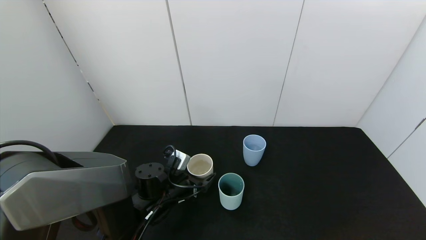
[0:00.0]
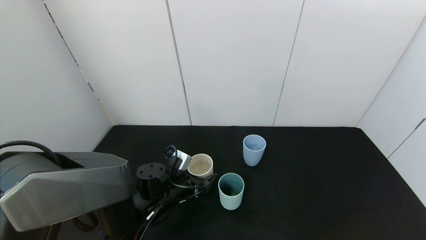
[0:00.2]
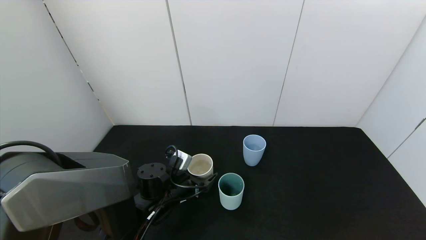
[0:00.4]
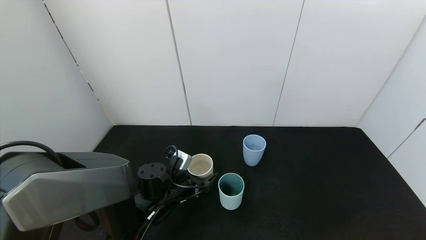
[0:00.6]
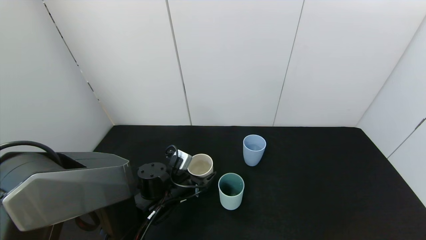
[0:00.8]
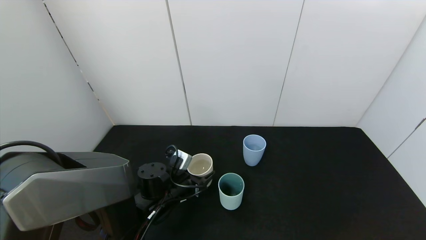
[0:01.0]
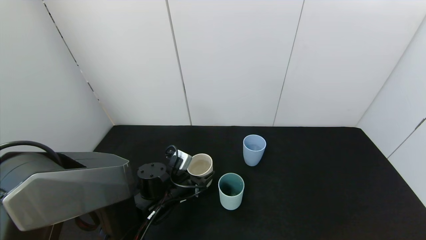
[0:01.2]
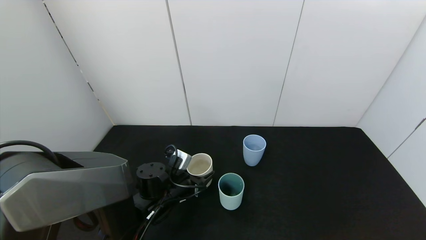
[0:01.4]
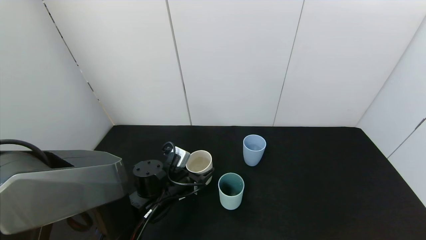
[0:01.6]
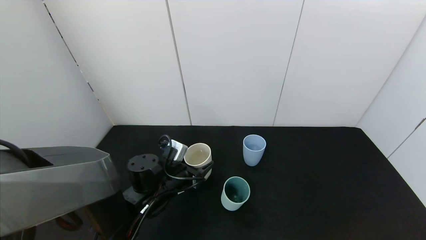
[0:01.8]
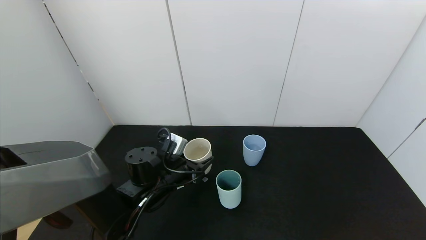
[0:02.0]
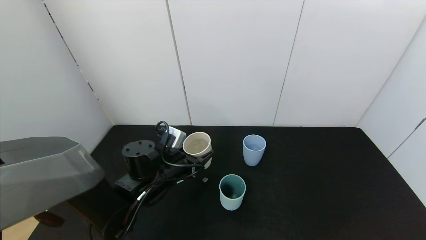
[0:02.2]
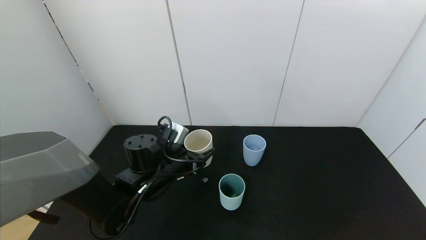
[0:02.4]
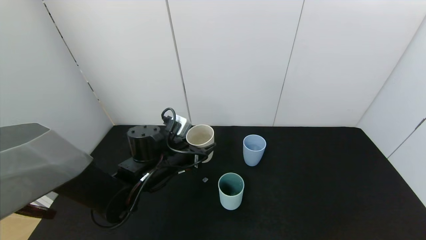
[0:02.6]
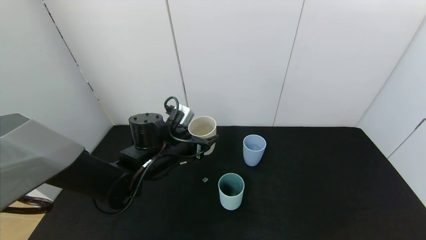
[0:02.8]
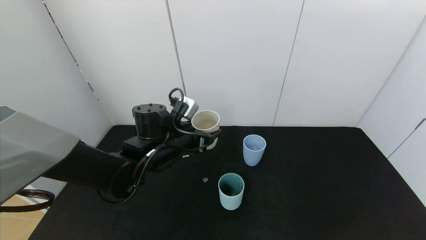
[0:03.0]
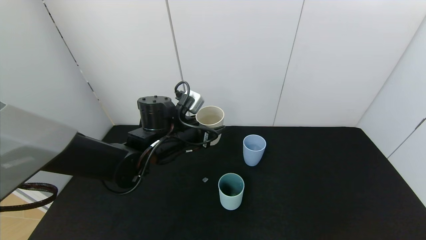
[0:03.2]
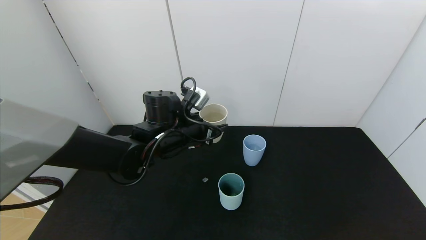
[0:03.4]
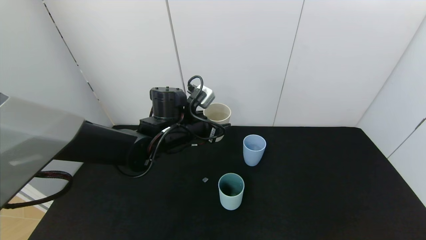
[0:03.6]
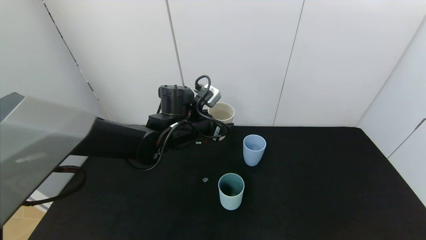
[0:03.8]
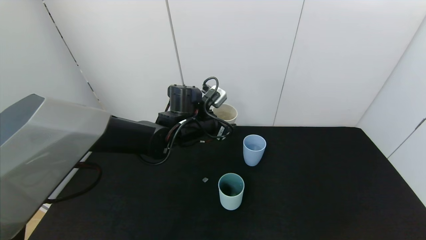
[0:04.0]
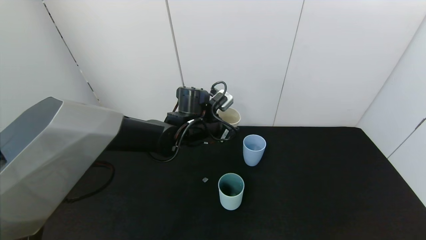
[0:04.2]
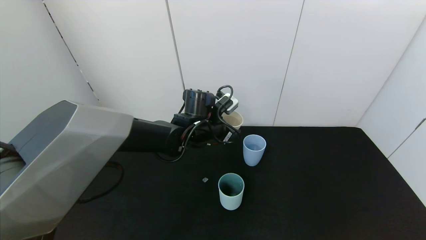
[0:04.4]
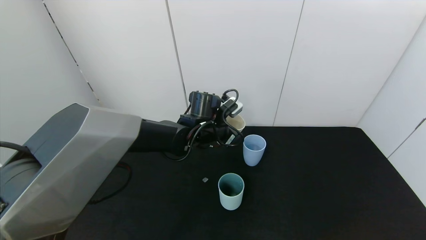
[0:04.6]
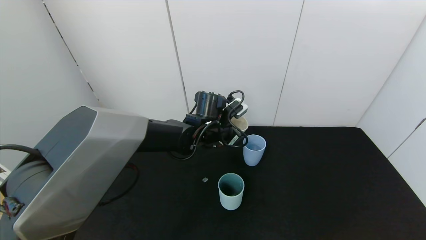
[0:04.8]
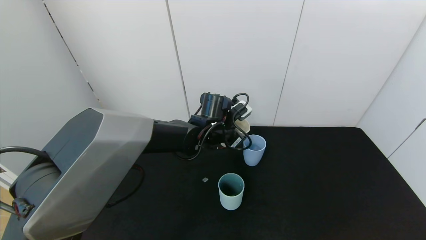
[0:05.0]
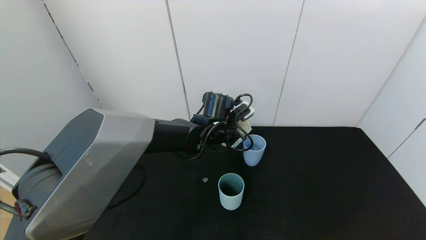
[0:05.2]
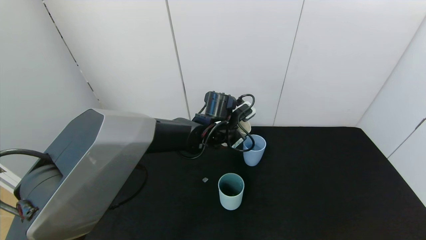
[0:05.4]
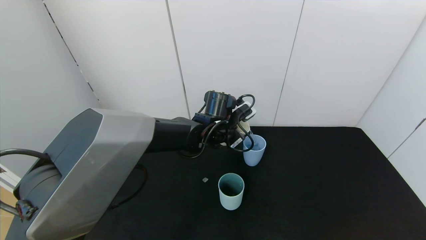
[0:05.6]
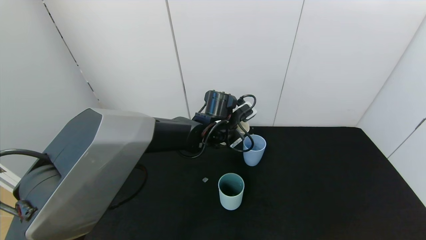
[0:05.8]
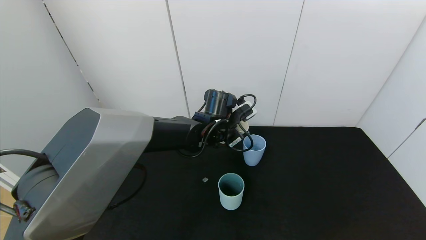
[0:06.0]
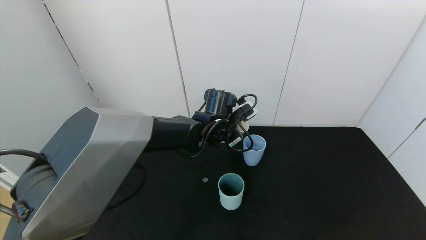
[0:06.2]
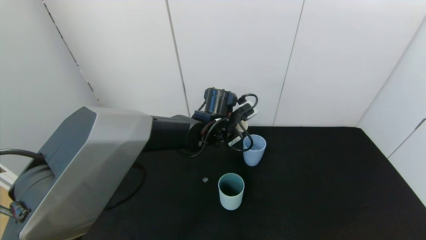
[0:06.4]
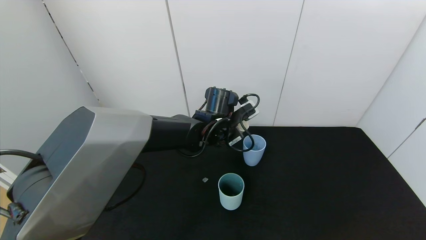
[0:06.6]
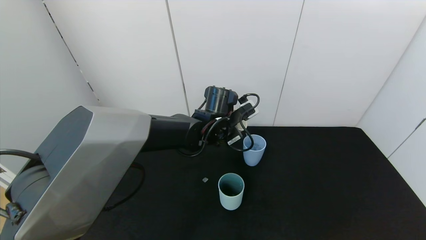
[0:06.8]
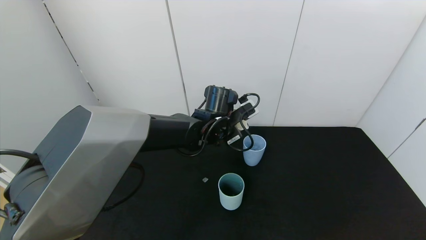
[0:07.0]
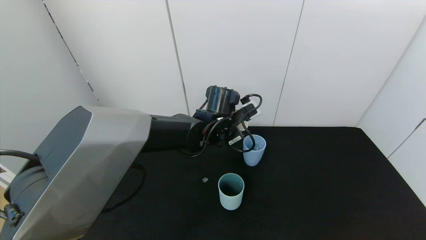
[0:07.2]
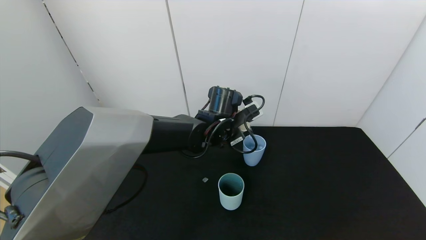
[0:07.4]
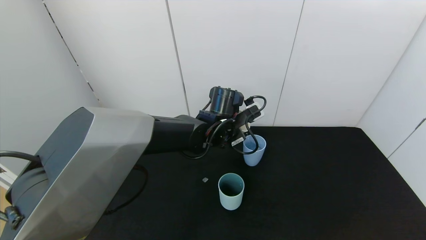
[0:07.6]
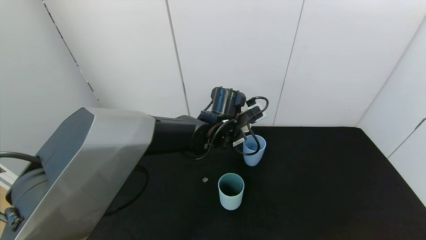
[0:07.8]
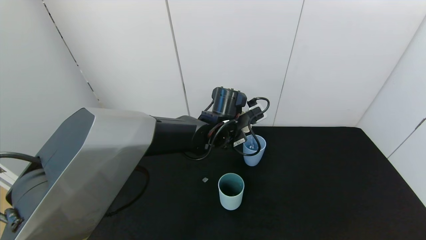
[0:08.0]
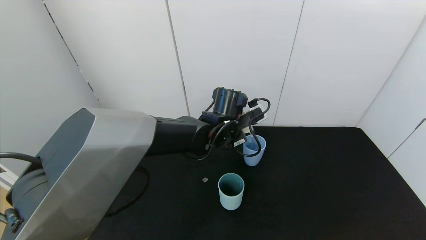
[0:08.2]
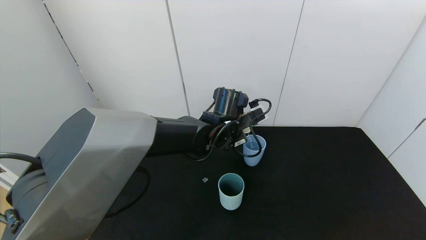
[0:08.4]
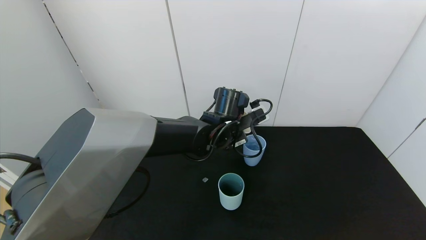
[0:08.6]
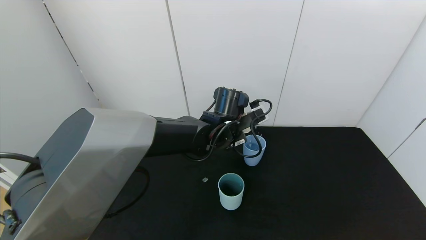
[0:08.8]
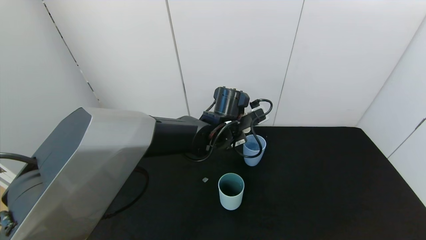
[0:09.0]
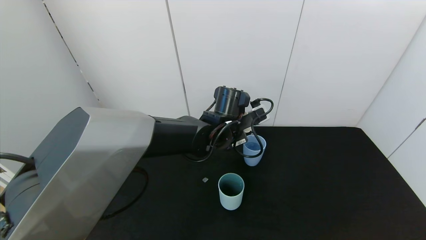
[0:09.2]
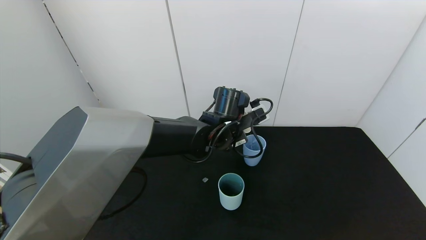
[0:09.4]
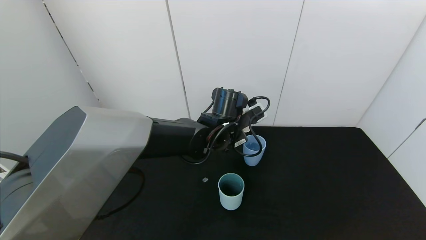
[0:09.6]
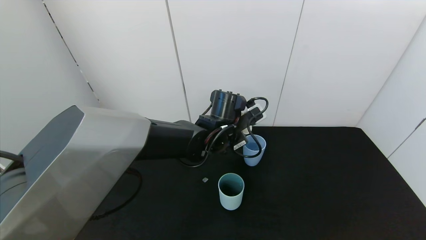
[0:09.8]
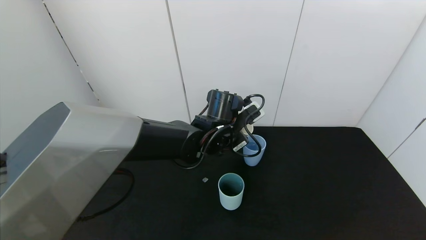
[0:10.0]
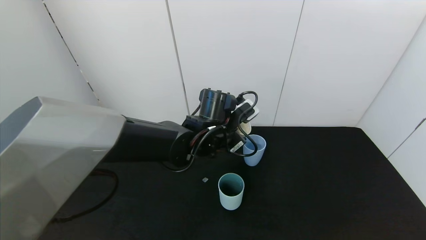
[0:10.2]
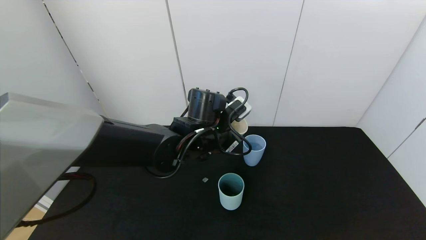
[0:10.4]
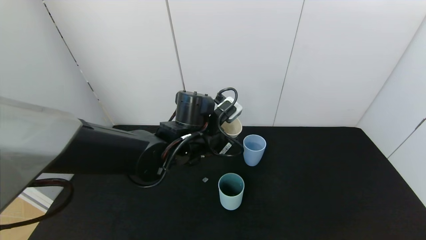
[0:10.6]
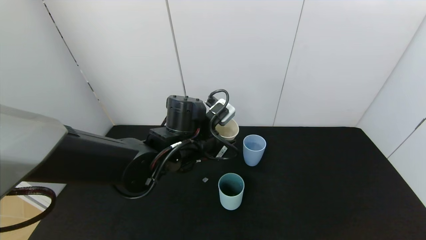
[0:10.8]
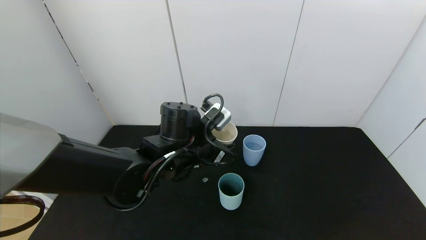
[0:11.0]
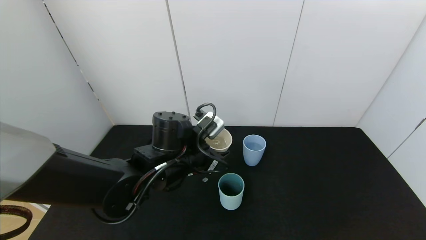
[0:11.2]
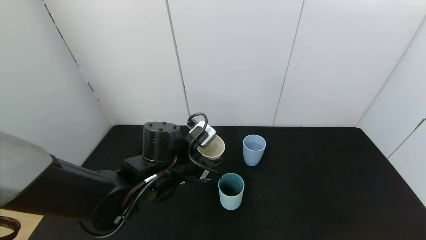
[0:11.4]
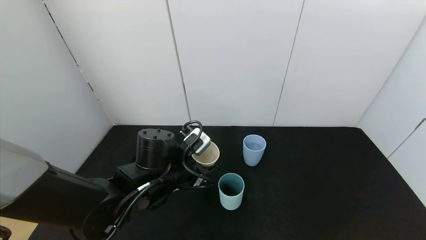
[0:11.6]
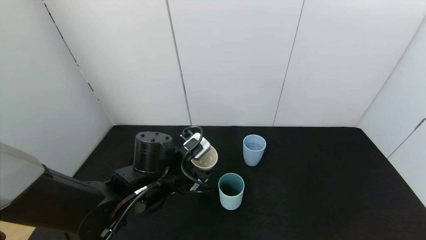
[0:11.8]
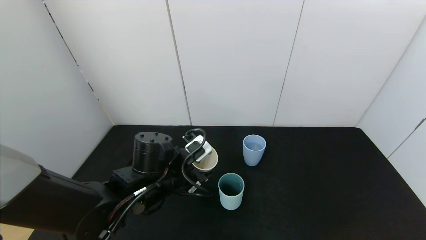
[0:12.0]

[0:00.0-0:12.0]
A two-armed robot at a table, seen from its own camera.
Task of the whole recording: use the gripper to pour the water into the other two cups on black table.
Step, 0:01.4 to 0:10.6: Pour water from white cup to blue cup with the left gripper.
0:00.0 to 0:01.6: The left gripper closes its fingers.
0:01.6 to 0:03.0: The left gripper moves upward, roughly 10 cm.
0:03.0 to 0:04.4: The left gripper shifts roughly 10 cm to the right and forward.
0:04.4 to 0:06.0: There are only small adjustments of the grippers.
0:06.0 to 0:09.0: The grippers make only small movements.
0:09.0 to 0:10.4: The left gripper changes place by some 5 cm.
0:10.4 to 0:12.0: The left gripper shifts about 10 cm to the left, backward and downward.

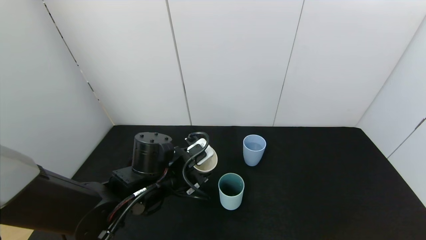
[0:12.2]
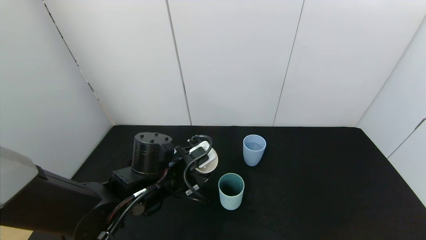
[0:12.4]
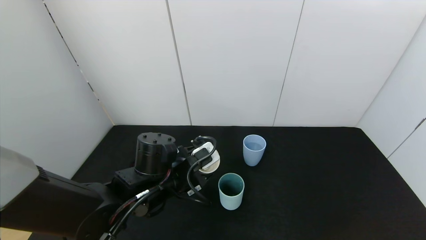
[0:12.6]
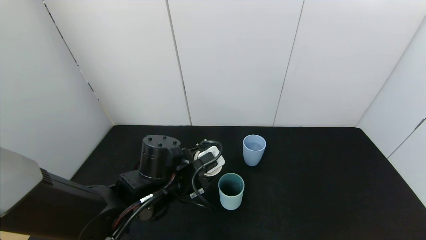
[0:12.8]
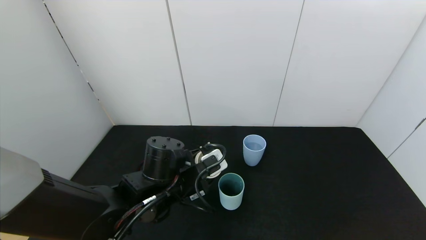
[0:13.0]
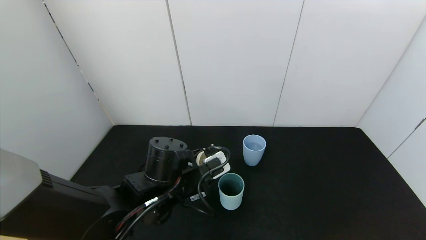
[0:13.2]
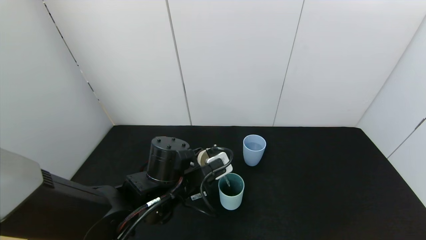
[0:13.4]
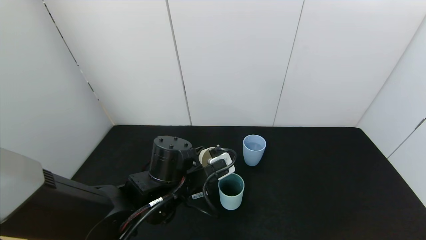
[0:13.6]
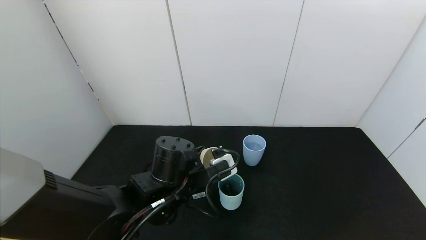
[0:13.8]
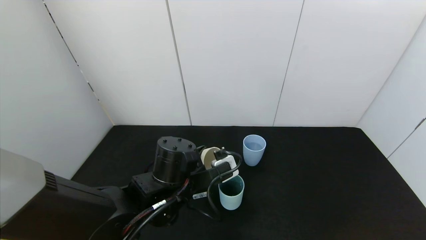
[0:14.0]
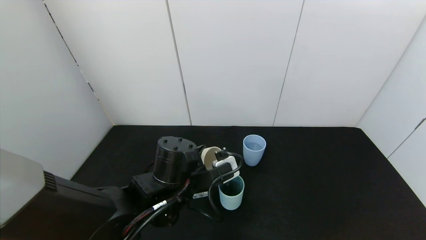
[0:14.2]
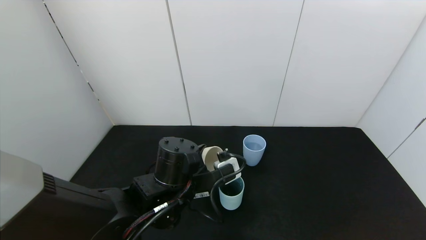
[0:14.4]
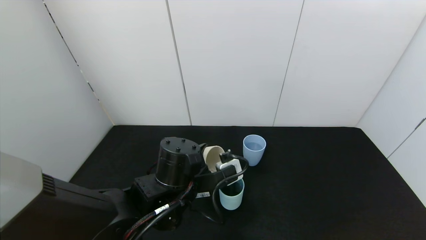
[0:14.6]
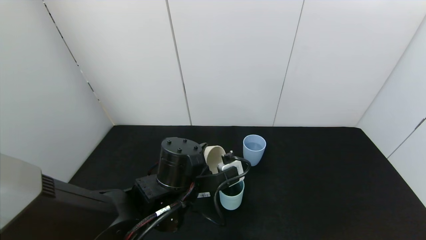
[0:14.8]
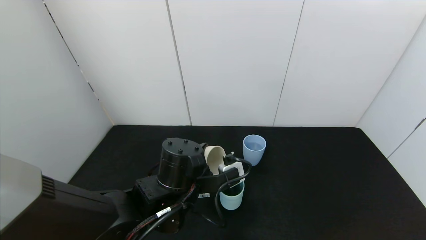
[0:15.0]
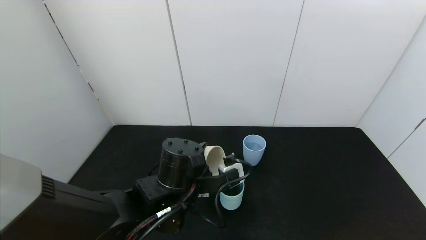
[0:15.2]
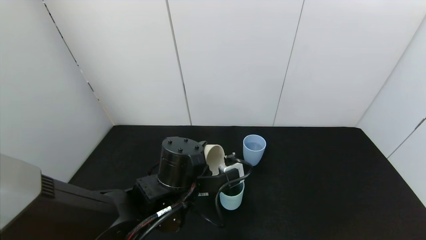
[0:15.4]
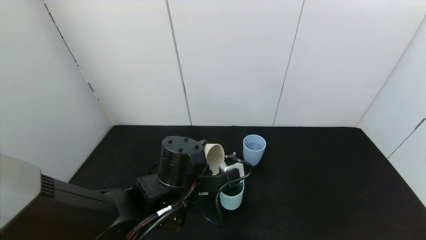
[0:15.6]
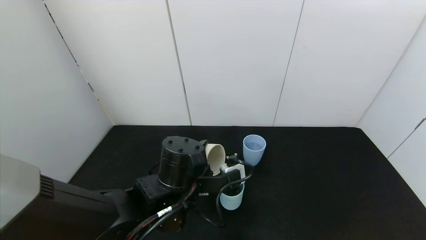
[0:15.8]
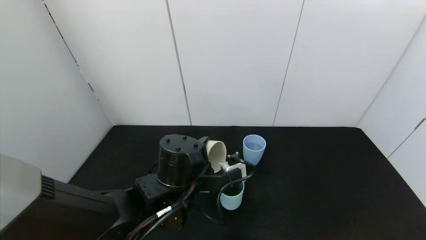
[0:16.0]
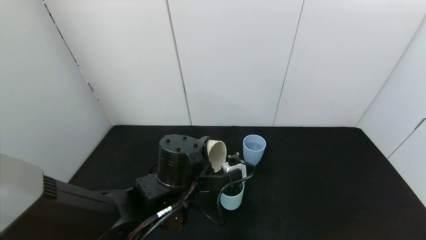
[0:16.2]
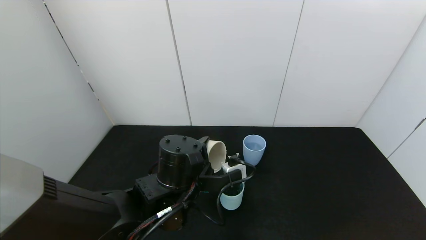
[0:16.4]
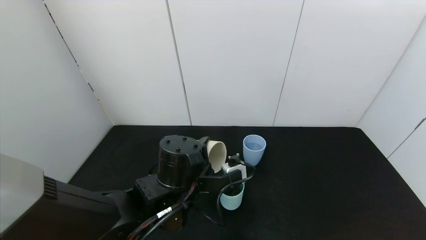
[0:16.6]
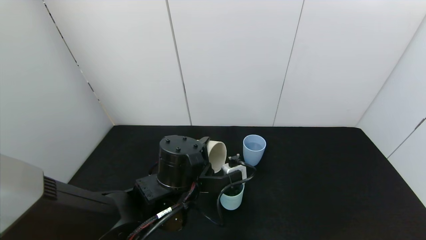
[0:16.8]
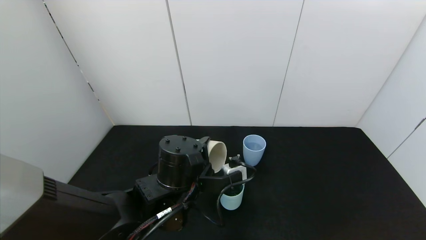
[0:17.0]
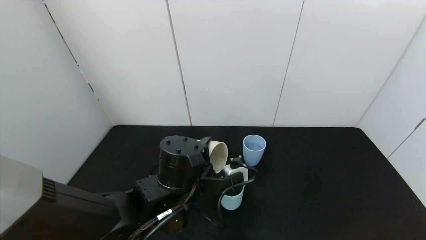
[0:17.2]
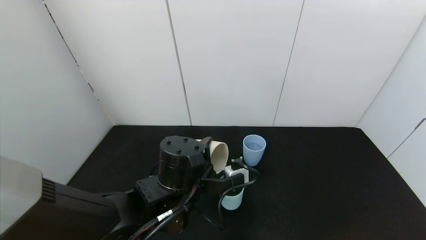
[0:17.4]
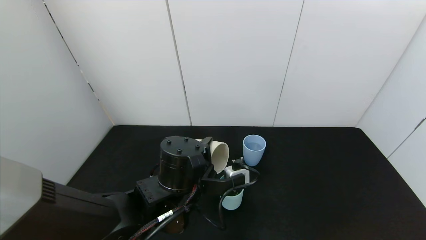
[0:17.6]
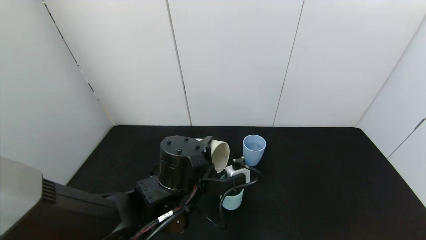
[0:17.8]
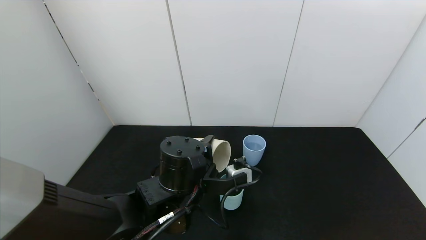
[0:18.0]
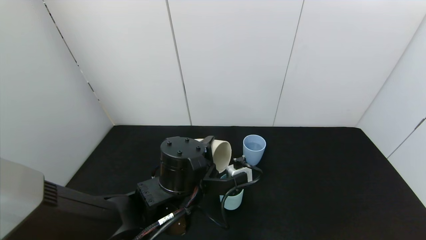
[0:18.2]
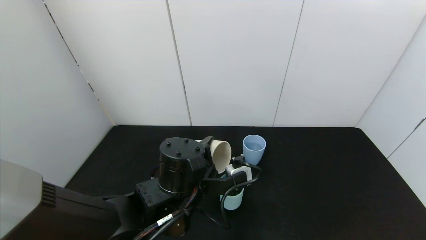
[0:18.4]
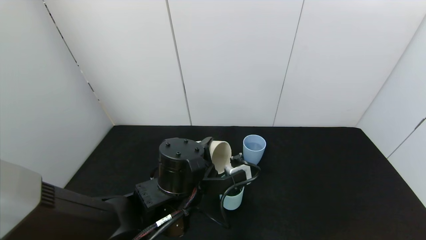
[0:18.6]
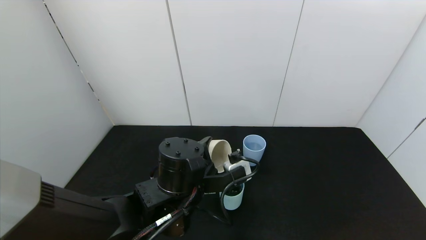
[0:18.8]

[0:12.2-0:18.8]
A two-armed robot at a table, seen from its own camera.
Task of the whole recording: use the gripper to pour the water into the other two cups on black table.
0:12.2 to 0:13.8: There are only small adjustments of the grippers.
0:13.8 to 0:15.4: The grippers stay close to where they were, moving slightly.
0:15.4 to 0:18.8: The grippers make only small movements.
